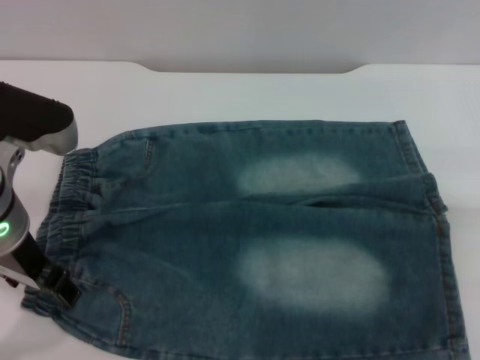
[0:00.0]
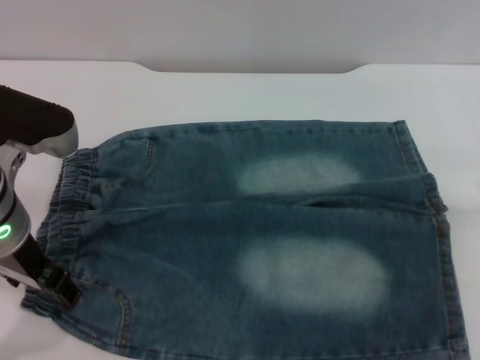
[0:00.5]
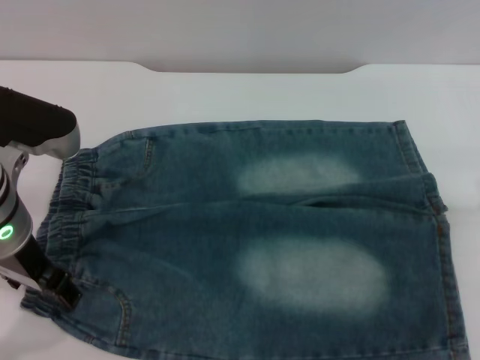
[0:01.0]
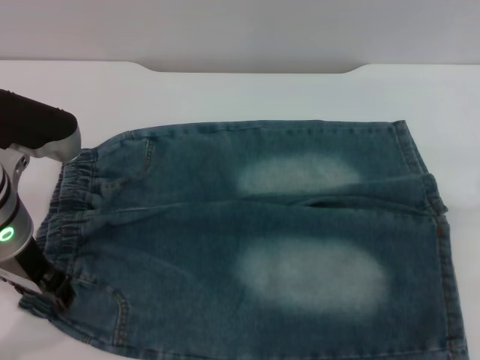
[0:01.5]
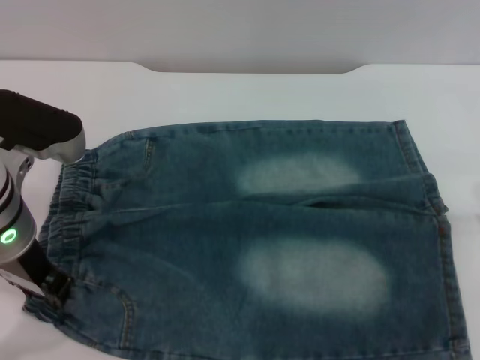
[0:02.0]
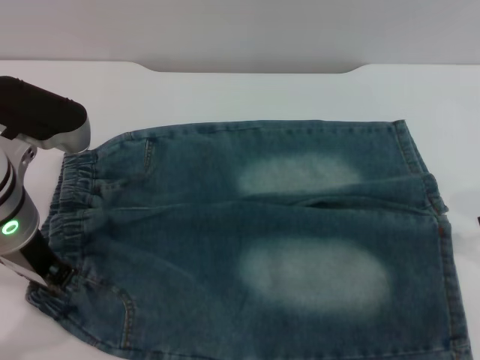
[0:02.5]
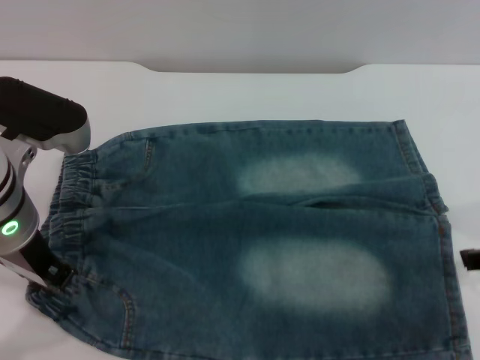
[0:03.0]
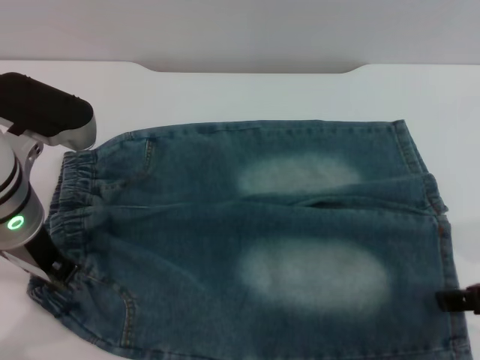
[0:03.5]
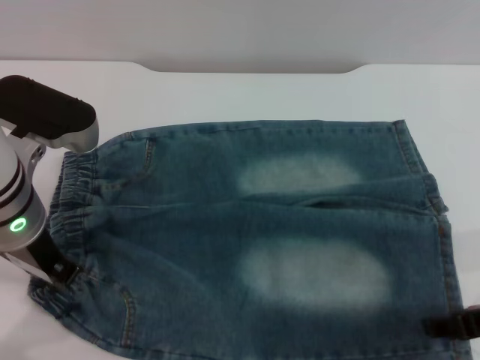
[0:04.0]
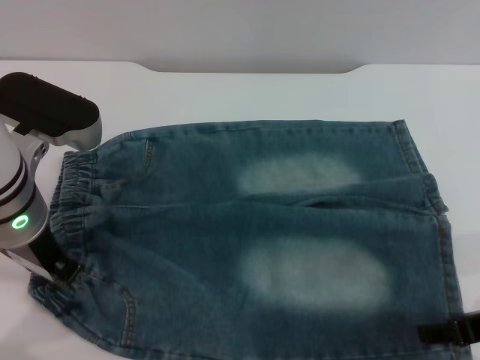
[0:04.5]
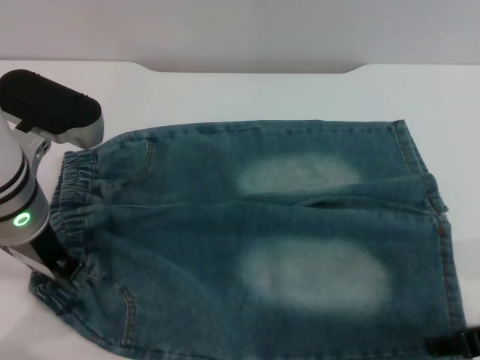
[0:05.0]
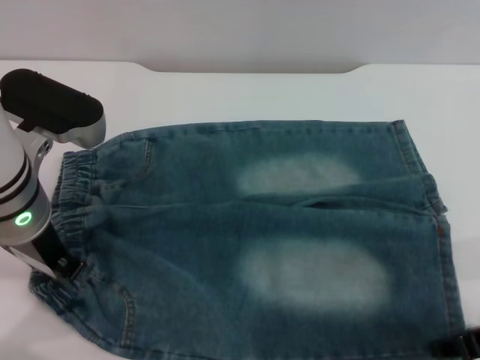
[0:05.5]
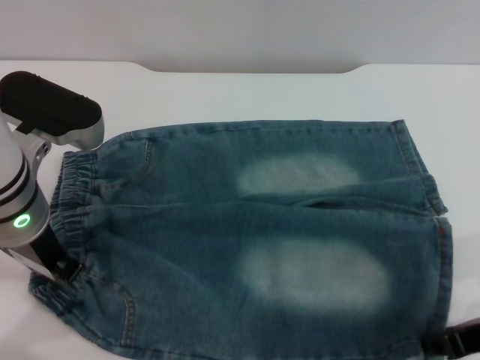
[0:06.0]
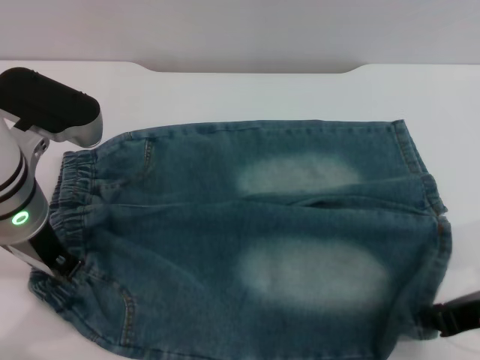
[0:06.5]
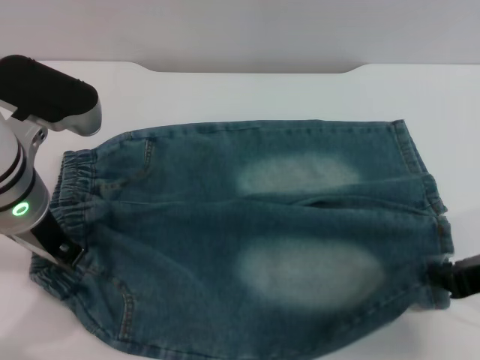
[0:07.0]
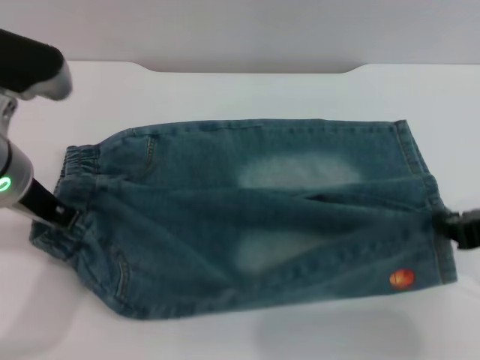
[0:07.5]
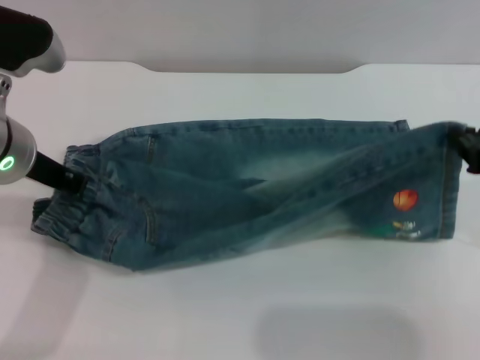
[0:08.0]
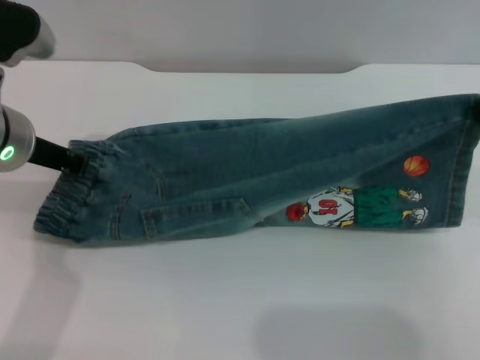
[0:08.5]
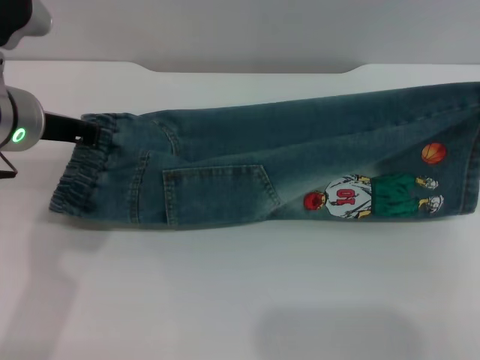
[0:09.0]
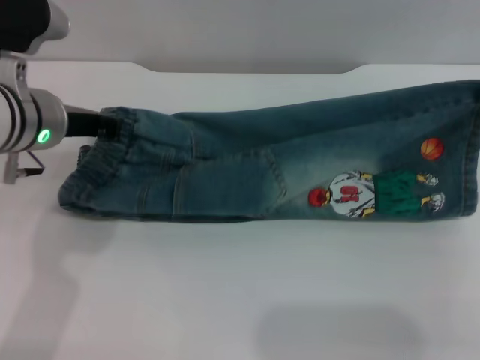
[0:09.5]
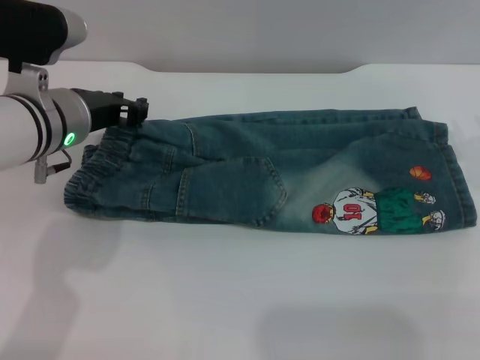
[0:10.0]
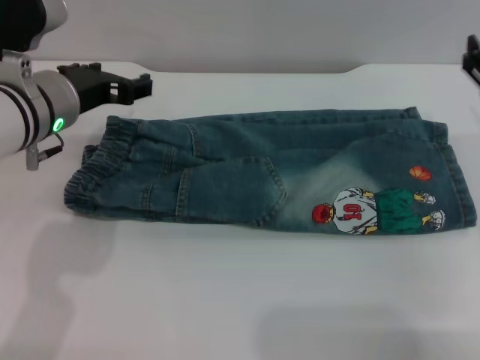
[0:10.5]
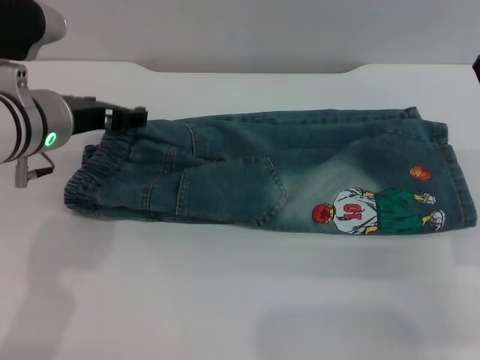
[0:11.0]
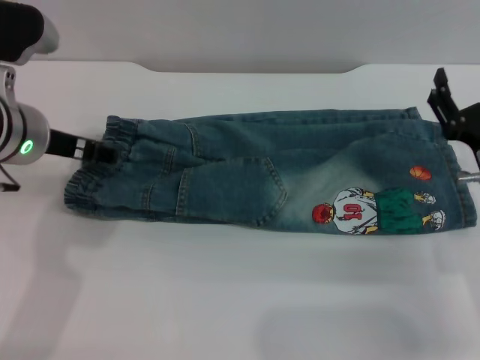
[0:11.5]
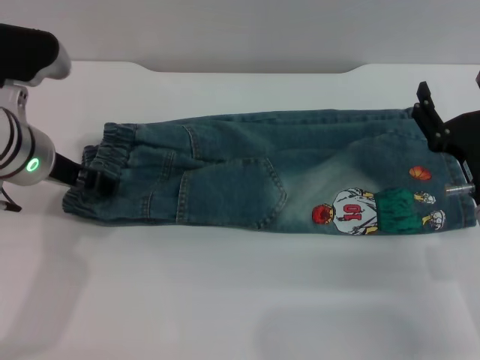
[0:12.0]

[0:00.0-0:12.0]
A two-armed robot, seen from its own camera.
Step, 0:00.0 to 0:10.0: Fold the bottom of the pants upward with both grippers.
0:00.0 to 0:02.0: The grippers move only a little.
0:02.0 to 0:04.0: The right gripper heads backward, covering approximately 5 cm; the left gripper closes its fingers.
0:04.0 to 0:06.0: The right gripper closes up.
0:06.0 to 0:08.0: The right gripper goes some 10 cm upward, and closes its fingers.
0:08.0 to 0:10.0: The right gripper moves forward and downward, about 10 cm, while the left gripper moves about 5 cm.
0:10.0 to 0:12.0: The left gripper opens up, while the right gripper moves downward and to the left, some 10 cm, and opens.

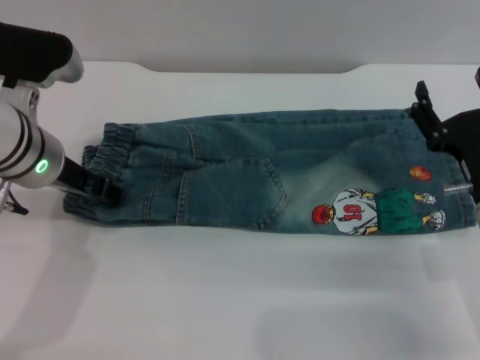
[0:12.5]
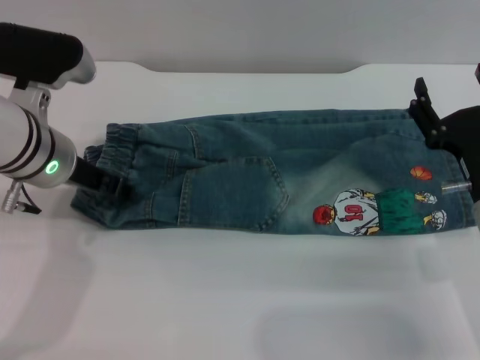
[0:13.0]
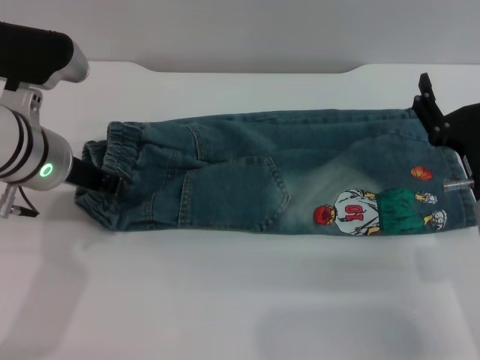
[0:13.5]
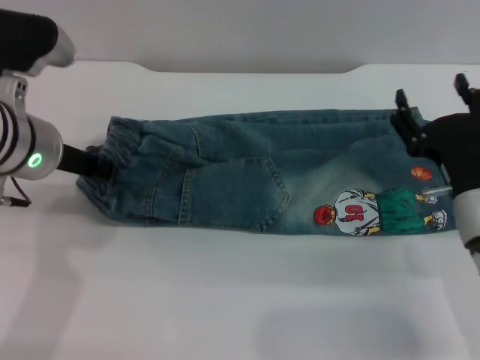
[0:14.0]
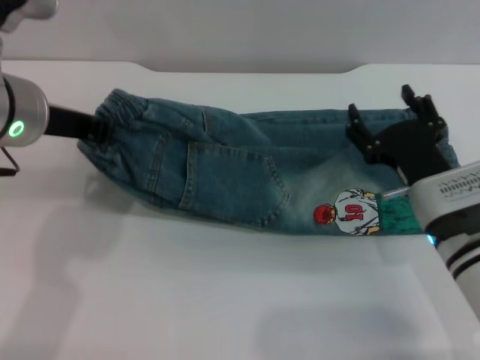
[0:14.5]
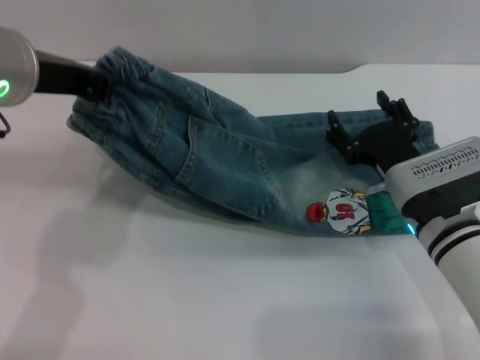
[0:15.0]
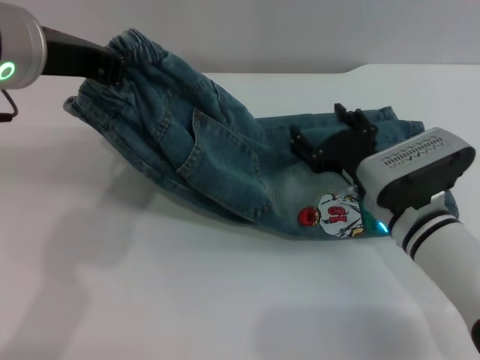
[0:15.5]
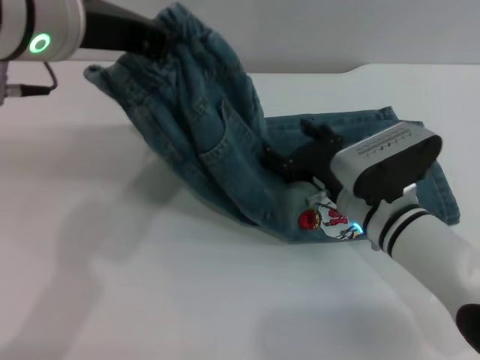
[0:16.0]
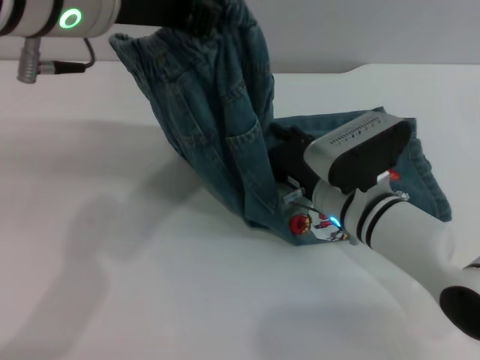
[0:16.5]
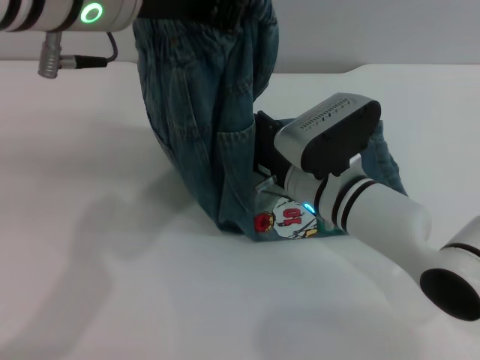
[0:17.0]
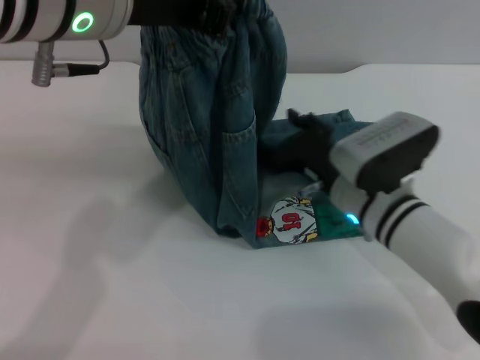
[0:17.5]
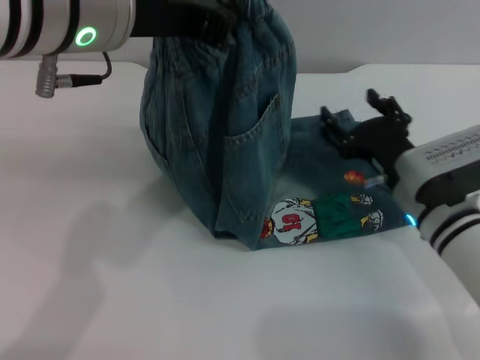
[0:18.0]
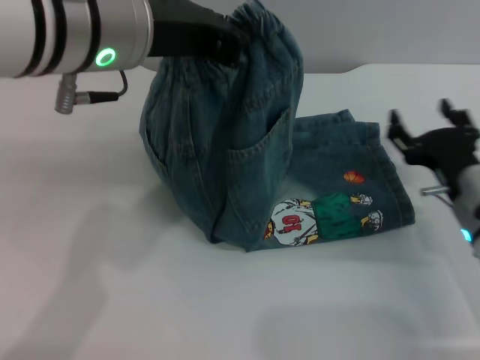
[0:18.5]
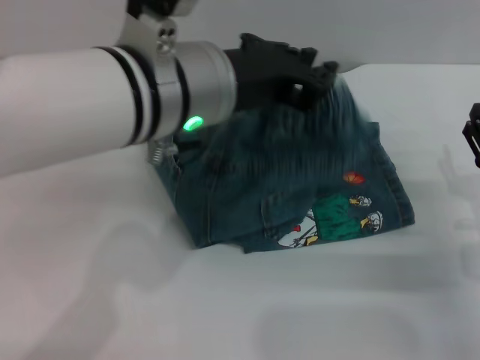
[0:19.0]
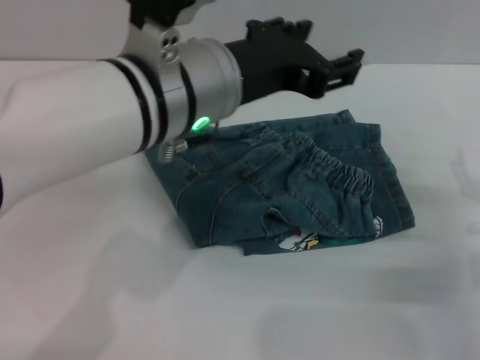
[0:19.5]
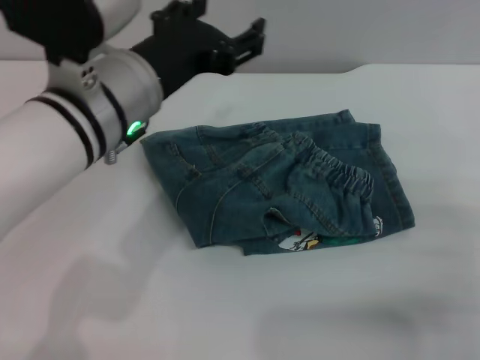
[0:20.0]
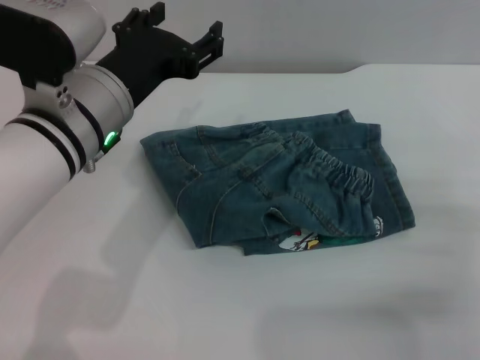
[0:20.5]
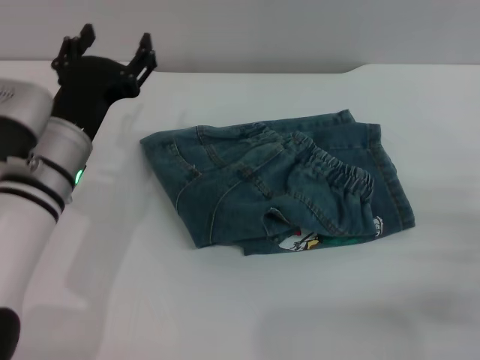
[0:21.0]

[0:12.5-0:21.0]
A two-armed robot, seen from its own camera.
Step, 0:12.5 to 0:19.0: Fold the pants from left to right with the left gripper.
0:12.5 to 0:14.5: The left gripper is displaced upward by some 5 cm, and closes its fingers.
0:14.5 to 0:16.5: The right gripper shifts roughly 10 cm to the left; the left gripper is displaced upward and to the right by roughly 10 cm.
0:16.5 to 0:19.0: The right gripper is displaced to the right and backward by about 20 cm. The left gripper is displaced downward and to the right by approximately 10 cm.
0:19.0 to 0:21.0: The right gripper changes place by some 5 cm. The left gripper travels downward and to the left by some 15 cm, and opens.
